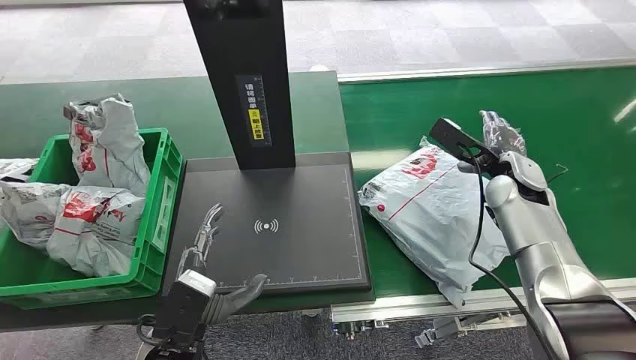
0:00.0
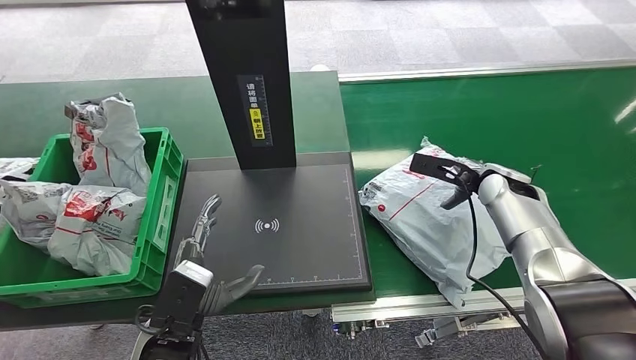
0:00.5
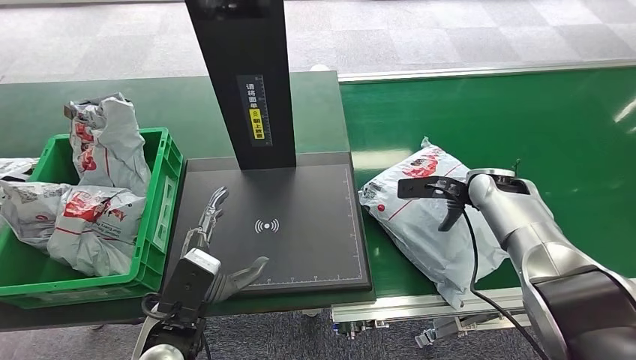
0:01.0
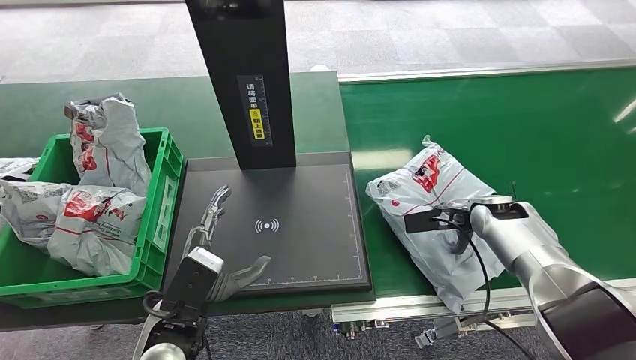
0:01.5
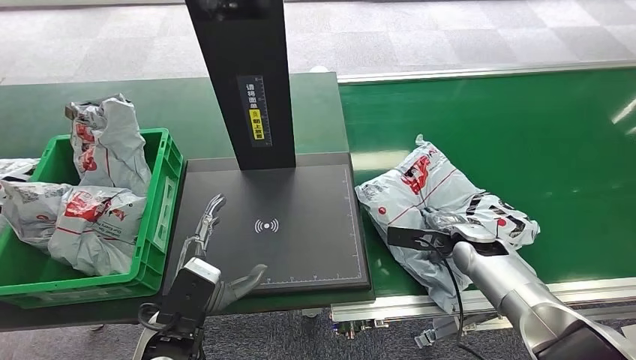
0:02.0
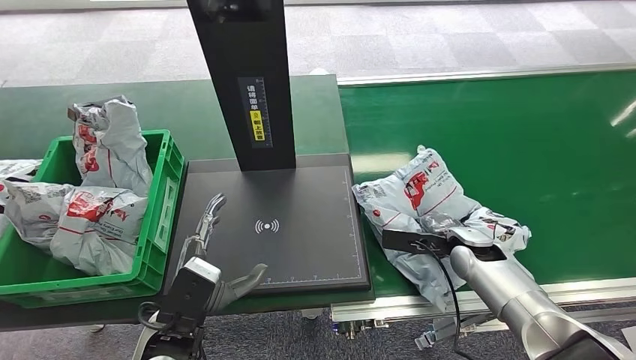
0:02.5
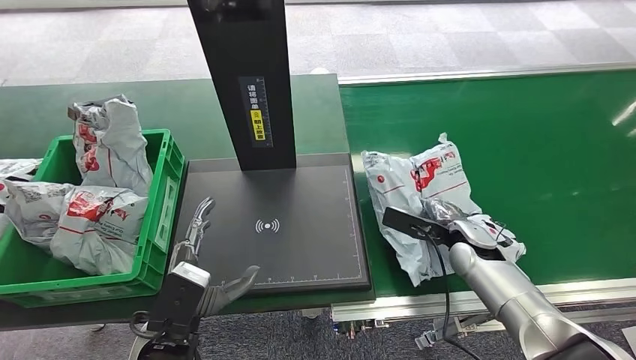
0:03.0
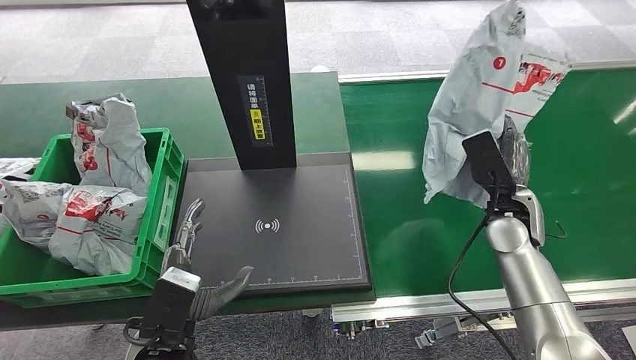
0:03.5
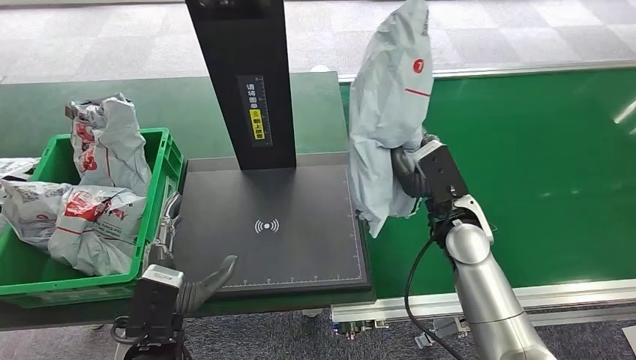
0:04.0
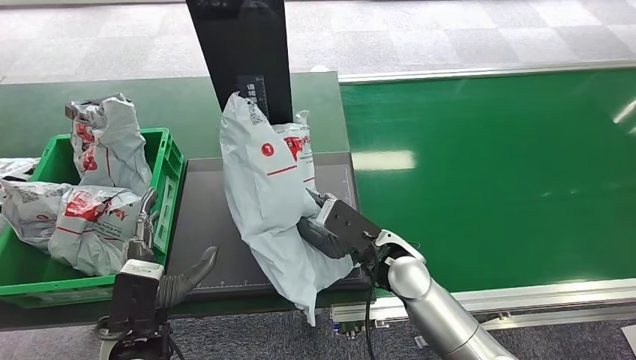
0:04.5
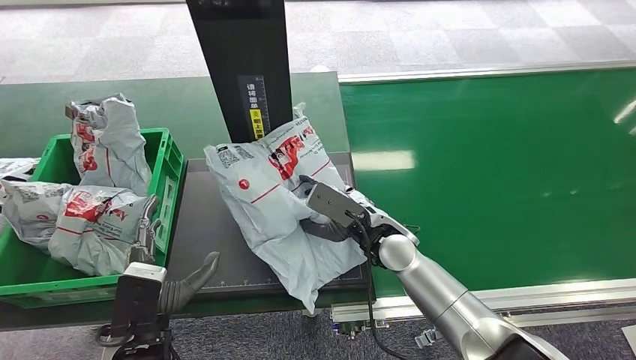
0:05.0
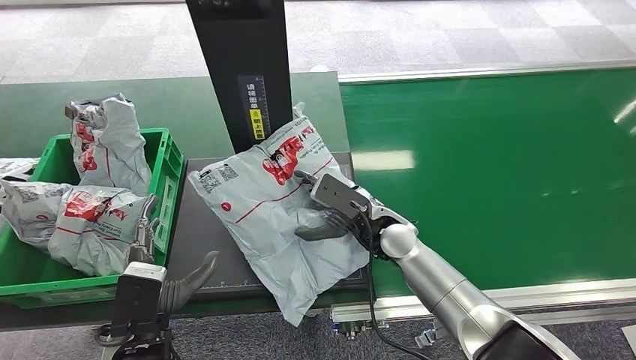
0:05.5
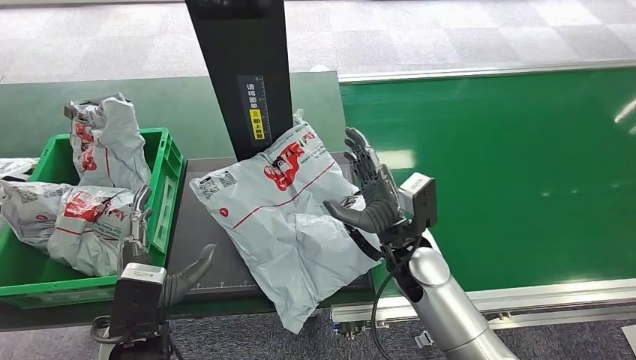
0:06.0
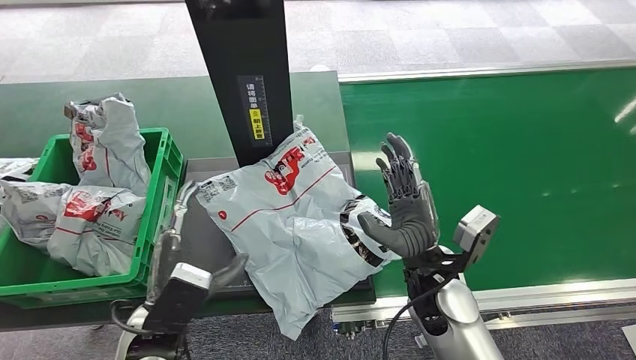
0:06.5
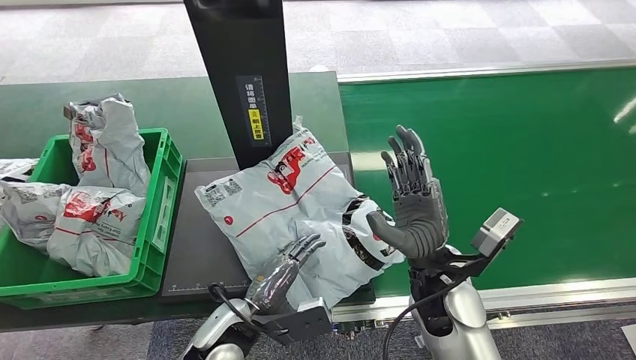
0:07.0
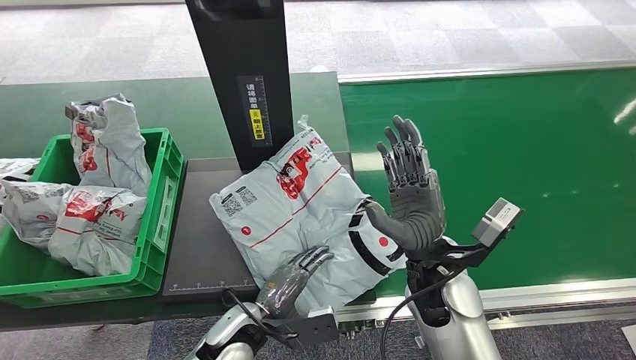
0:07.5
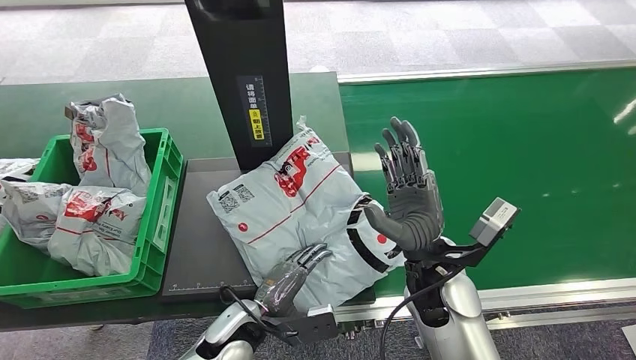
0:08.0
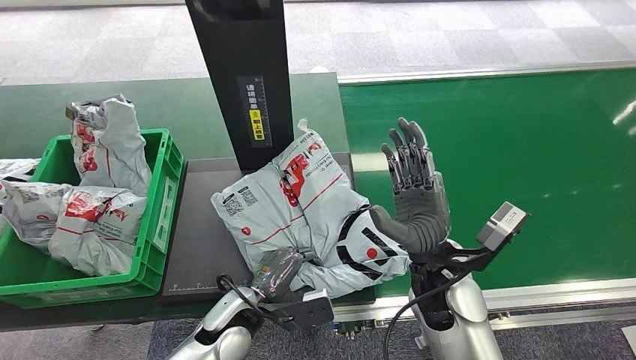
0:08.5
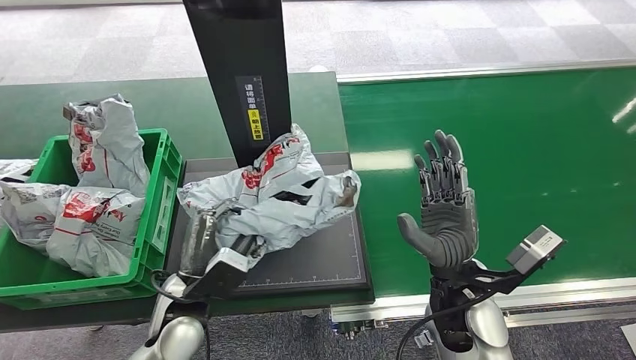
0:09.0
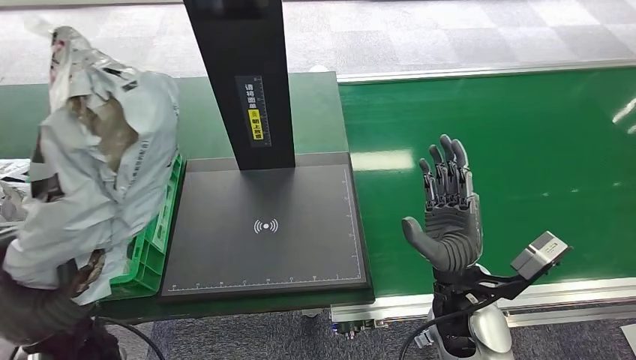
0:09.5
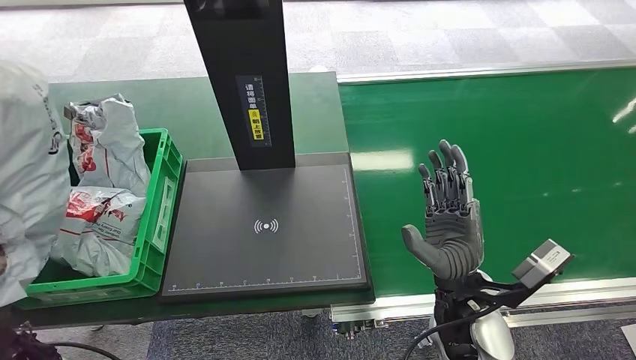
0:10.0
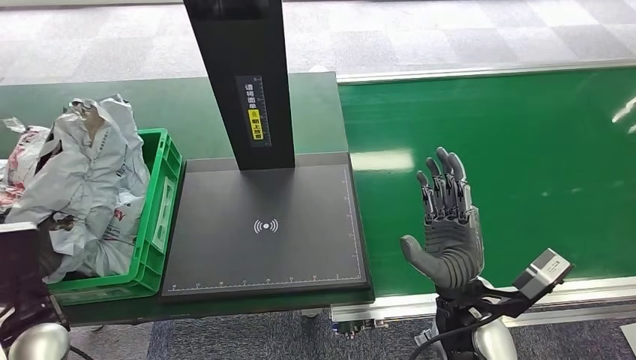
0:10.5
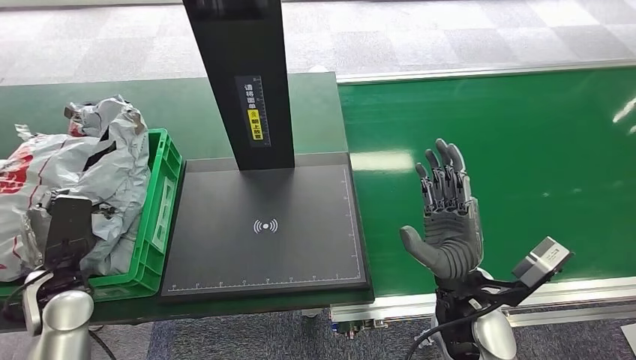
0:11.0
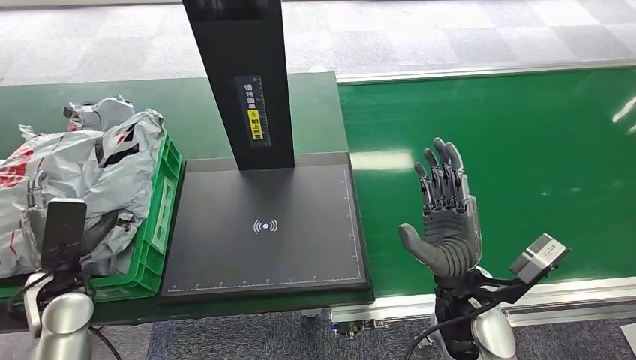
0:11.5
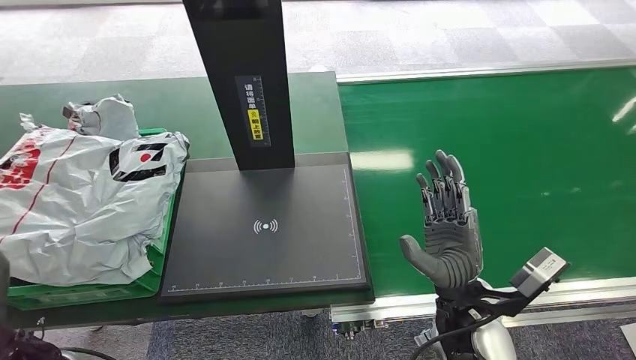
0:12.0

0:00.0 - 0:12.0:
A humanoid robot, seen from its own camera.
Step, 0:00.0 - 0:03.0: Pick up the package from the conveyor belt.
Step, 0:03.5 - 0:07.0: Place the package onto the inbound machine.
Step, 0:07.5 - 0:09.0: Pick up the package from the inbound machine.
Step, 0:09.5 - 0:12.0: Place the package into the parcel locker.
0:06.0 - 0:08.0: The right hand shifts by some 5 cm; the left hand heads downward and to the right, covering approximately 15 cm.
0:10.0 - 0:12.0: The left hand moves approximately 10 cm forward and comes back.
